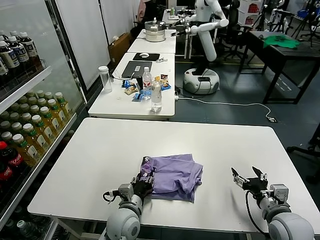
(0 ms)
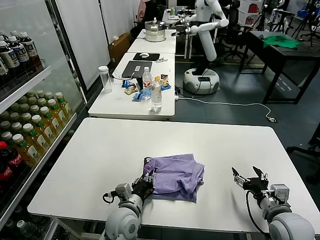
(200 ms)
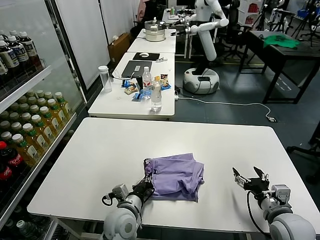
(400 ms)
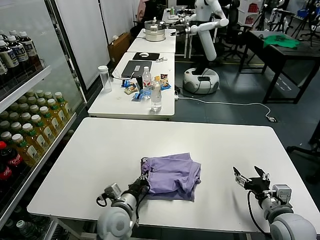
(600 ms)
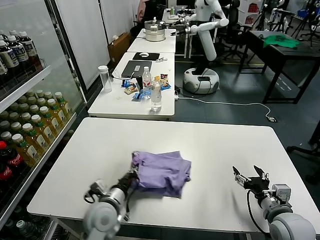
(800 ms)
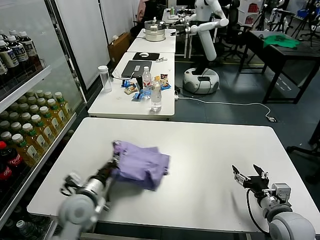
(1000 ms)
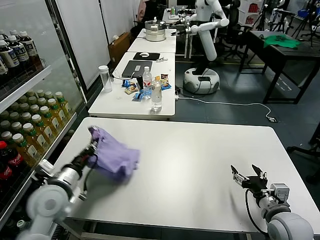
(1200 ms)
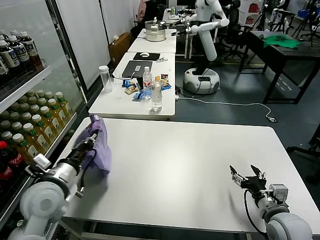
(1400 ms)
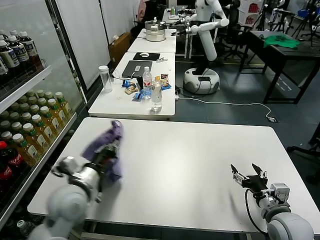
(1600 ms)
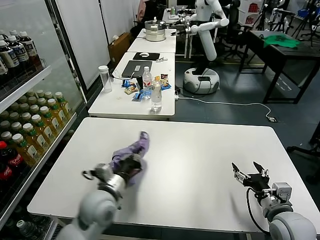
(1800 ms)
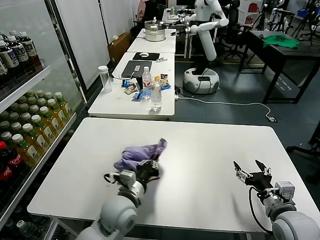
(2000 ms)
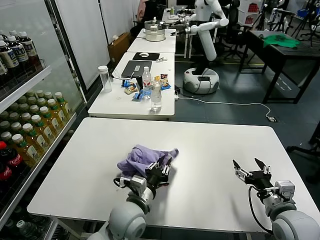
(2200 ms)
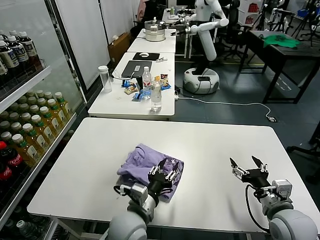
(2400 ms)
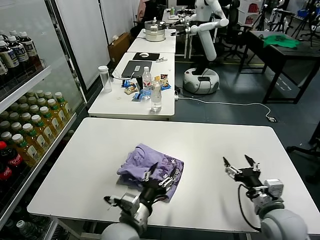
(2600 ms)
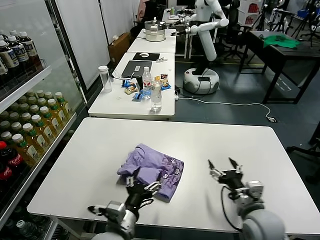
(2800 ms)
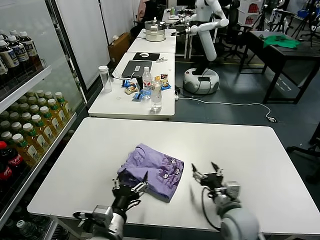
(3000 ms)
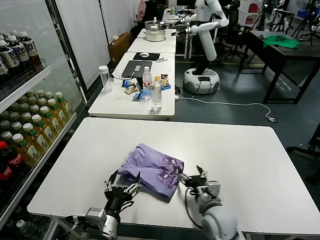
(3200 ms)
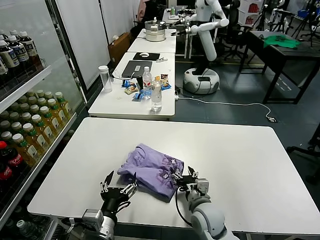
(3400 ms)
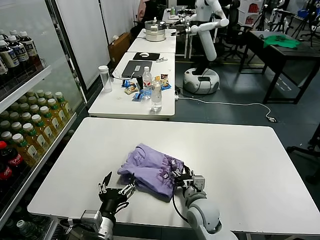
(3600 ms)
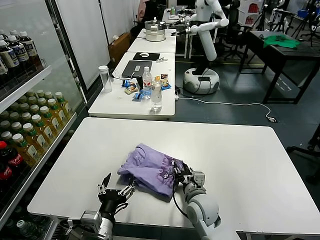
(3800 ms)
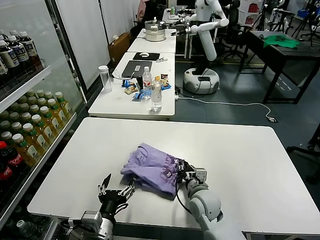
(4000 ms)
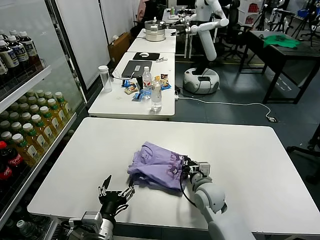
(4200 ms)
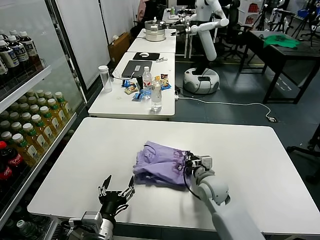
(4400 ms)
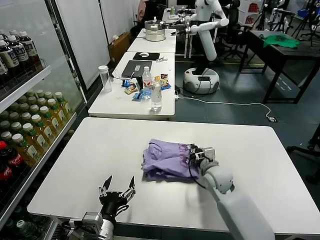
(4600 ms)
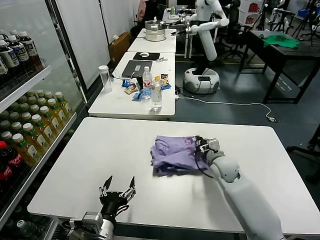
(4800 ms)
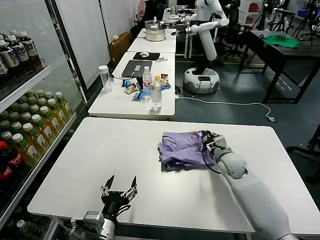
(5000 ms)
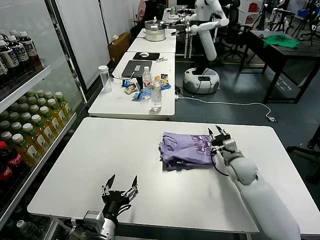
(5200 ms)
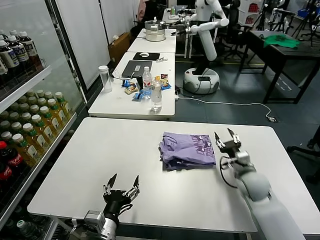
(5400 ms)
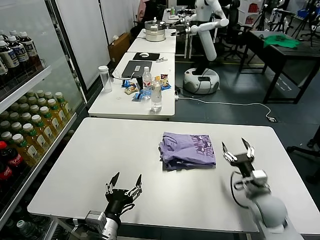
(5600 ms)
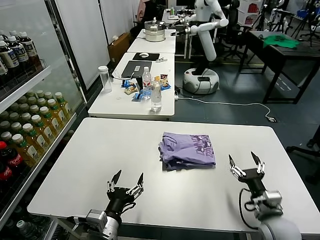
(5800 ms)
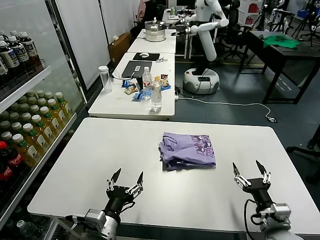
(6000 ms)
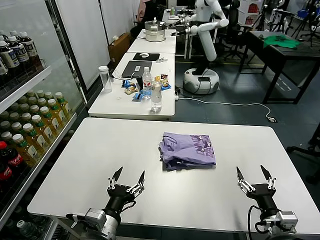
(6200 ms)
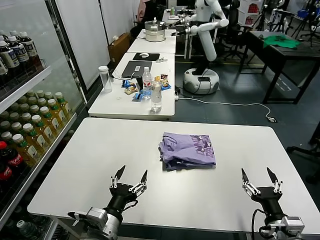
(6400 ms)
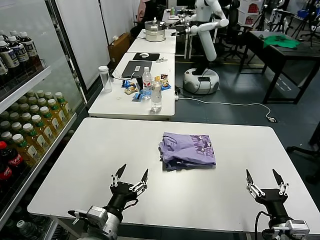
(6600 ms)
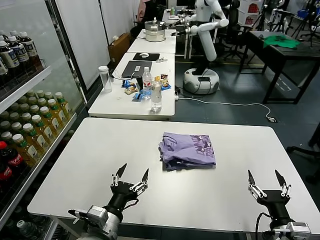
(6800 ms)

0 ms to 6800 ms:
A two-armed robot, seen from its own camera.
Task of the whole recording: fold and organize the clothes.
Step, 0 ms to 2400 ms: Flip the folded clothes over with left gripper.
Step, 2600 ms to 5200 ms: Drag the clothes to the center of the table.
0 ms to 1400 ms: The left gripper moves to the left and upward, about 25 cm, and closes up.
1400 ms to 2800 ms: The right gripper goes roughly 5 cm to the left; the left gripper is displaced to the right and backward by some 20 cm, and opens its fingers.
2800 ms to 4000 ms: The right gripper travels to the left, forward and downward by roughly 20 cm, and closes. Meanwhile the left gripper travels to the left by some 5 cm.
4000 ms to 5400 ms: The right gripper heads to the right and forward, covering approximately 20 cm.
5400 ms to 6800 ms: The right gripper goes some 25 cm backward, and opens up.

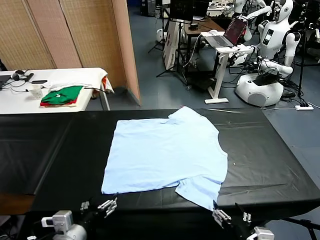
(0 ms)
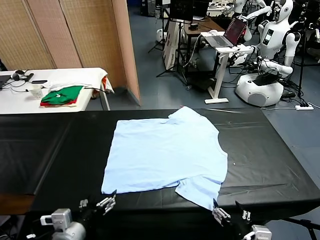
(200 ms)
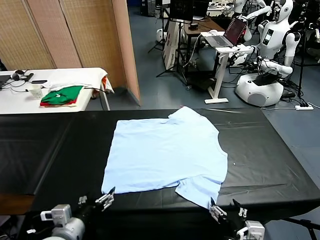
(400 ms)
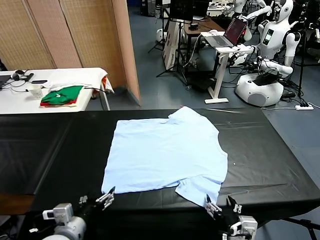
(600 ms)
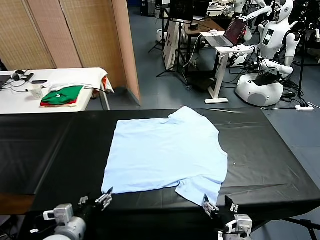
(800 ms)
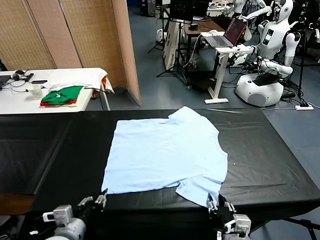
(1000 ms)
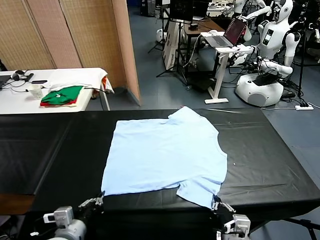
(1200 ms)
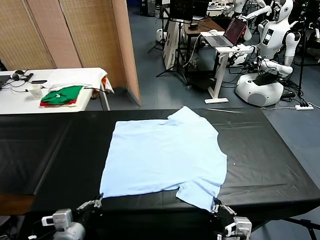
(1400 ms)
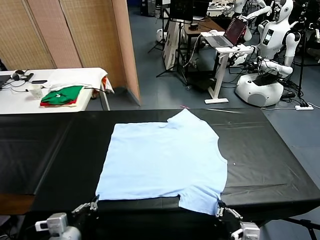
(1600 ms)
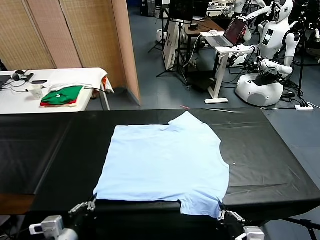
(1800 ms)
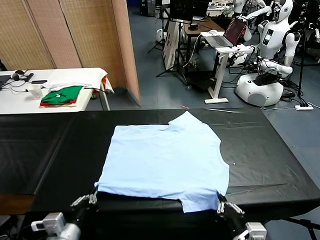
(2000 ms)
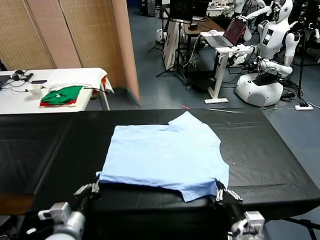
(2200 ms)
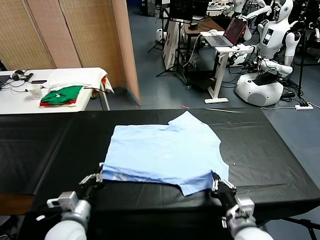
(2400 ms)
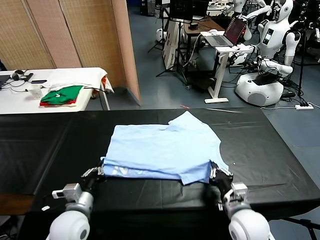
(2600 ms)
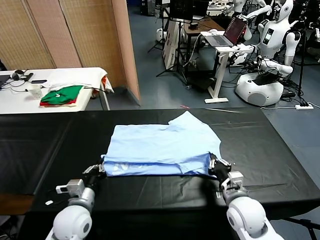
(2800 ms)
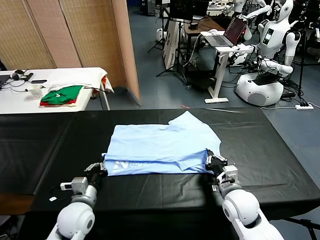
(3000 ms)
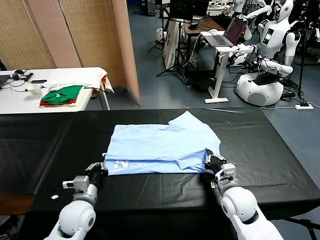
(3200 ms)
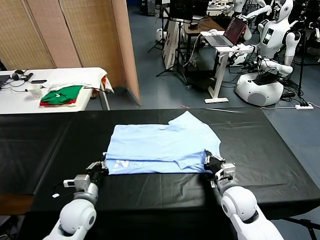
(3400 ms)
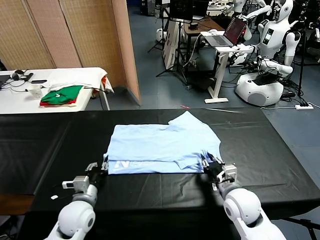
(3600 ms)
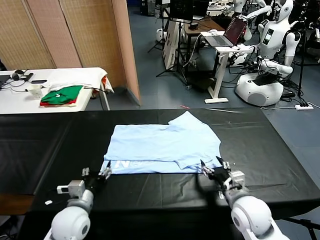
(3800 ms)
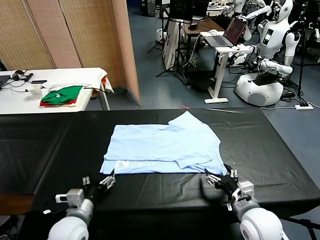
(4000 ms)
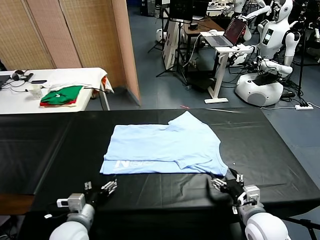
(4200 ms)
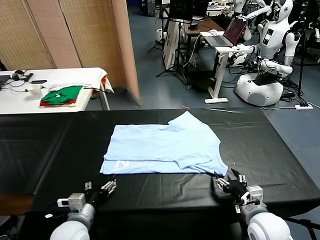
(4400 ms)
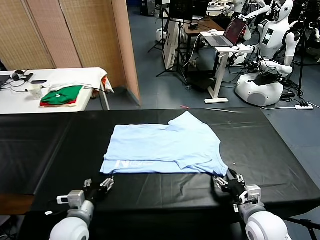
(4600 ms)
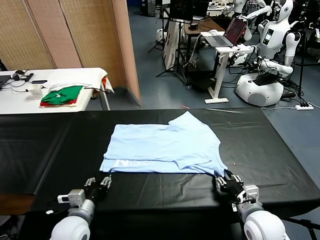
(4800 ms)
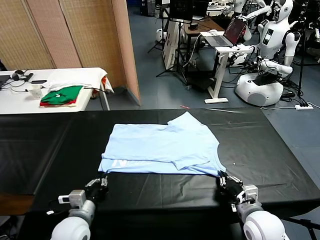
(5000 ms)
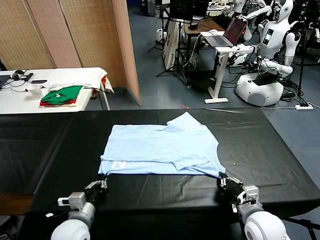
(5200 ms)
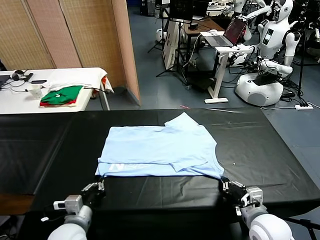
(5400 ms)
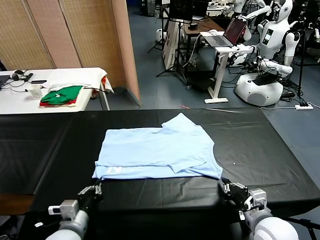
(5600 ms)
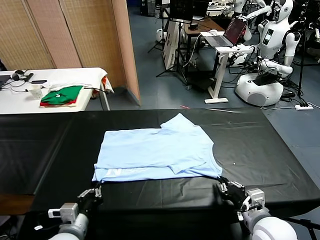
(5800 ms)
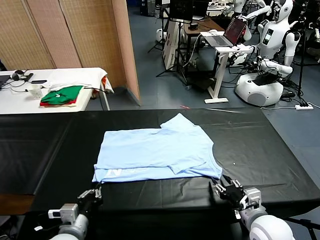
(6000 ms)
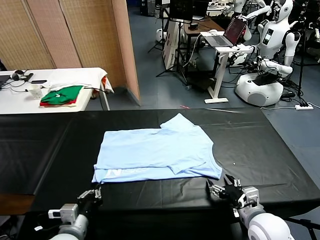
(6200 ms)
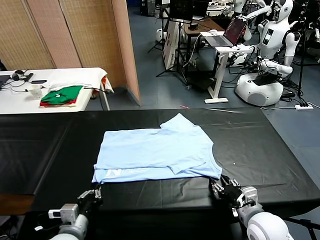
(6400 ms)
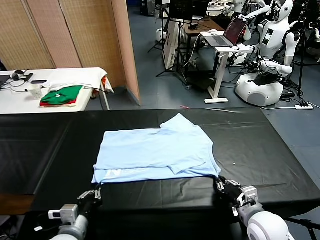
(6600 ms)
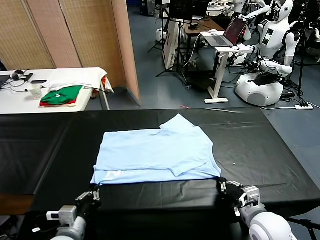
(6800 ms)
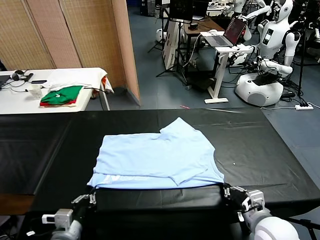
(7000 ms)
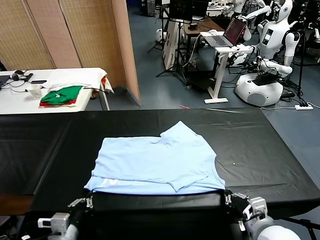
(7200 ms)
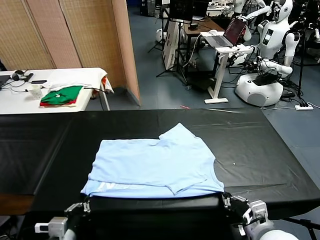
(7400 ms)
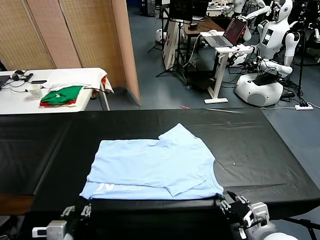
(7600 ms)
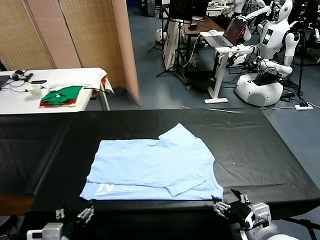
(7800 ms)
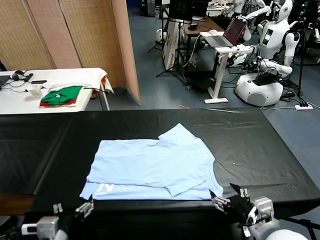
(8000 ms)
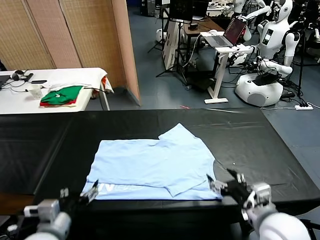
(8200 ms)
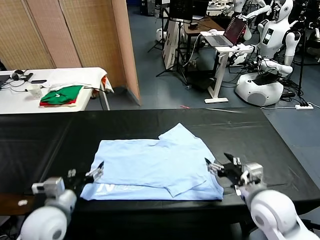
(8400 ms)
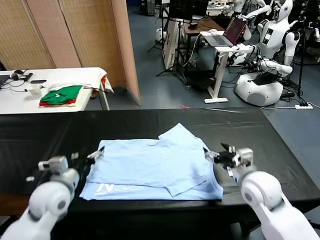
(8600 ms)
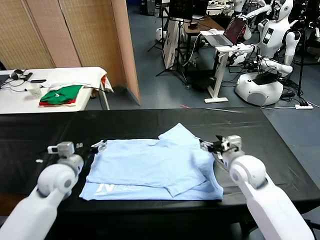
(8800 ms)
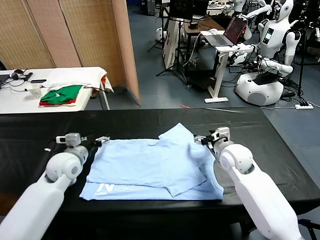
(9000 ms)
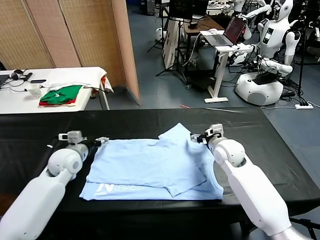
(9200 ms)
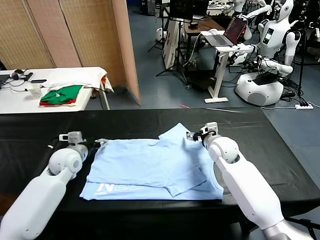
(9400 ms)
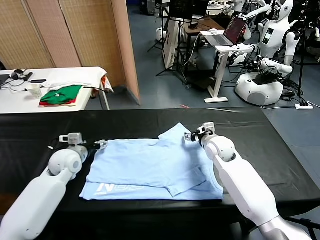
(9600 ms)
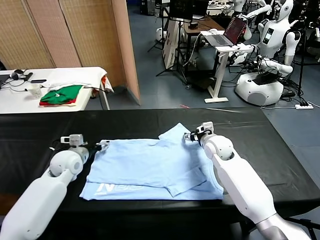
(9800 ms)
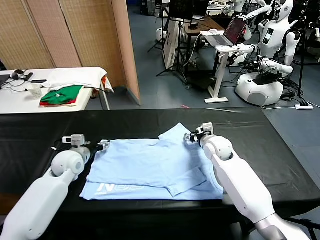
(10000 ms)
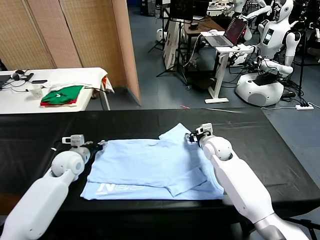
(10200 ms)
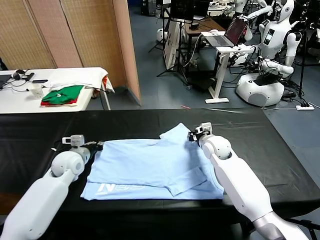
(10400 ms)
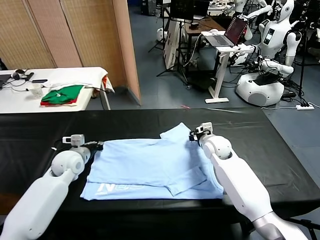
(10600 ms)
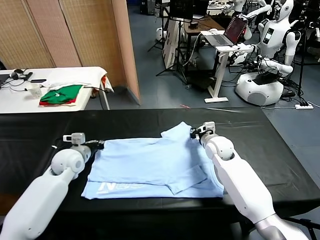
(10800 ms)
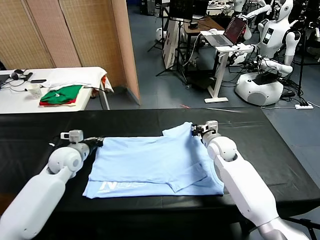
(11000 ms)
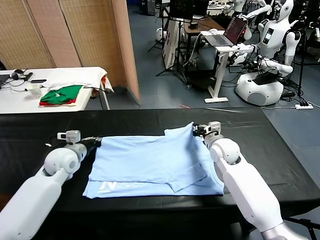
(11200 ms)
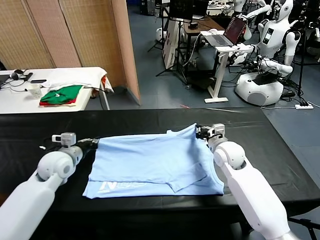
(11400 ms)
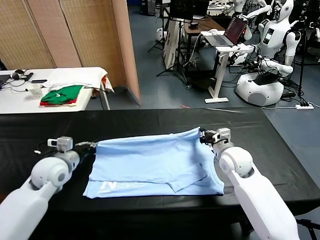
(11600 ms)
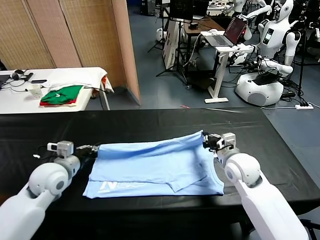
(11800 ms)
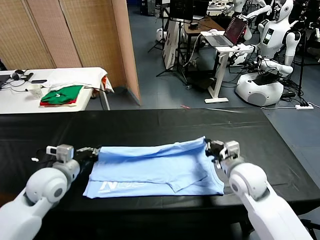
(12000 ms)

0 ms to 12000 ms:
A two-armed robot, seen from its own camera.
Task of the whole recording: fold and organize the clothes.
Step, 0 ms to 1400 ms: use both grippers simultaneously to clamp the lower edge of the clothing fabric.
Step, 1600 ms to 3600 ms: use both grippers to drag the lower edge of the fabric forward and fold it over the upper edge.
Step, 3800 ms to 7600 ms: Drag the clothes downward with both gripper.
Step, 8000 ms to 10400 ms: use both grippers simultaneously to clamp the upper edge of the clothing fabric.
1600 ms to 3000 ms: The left gripper goes about 15 cm forward and downward. The right gripper heads forward, covering about 20 cm.
3000 ms to 4400 ms: The right gripper shifts some 10 cm backward, and opens up. Meanwhile the left gripper shifts roughly 5 cm backward, and opens.
4400 ms to 6000 ms: The left gripper closes up; the right gripper closes, then reopens.
6000 ms to 7600 ms: The left gripper heads backward, covering approximately 5 cm, and opens, while the right gripper is displaced upward and backward by some 10 cm, and closes, then reopens.
7600 ms to 9000 ms: Both grippers travel together forward, about 30 cm. The left gripper opens its fingers.
9000 ms to 10400 ms: The right gripper ends up approximately 5 cm from where it was, and closes. Meanwhile the left gripper closes up.
10400 ms to 12000 ms: The left gripper travels backward and upward by some 15 cm. The right gripper is displaced backward by some 20 cm.

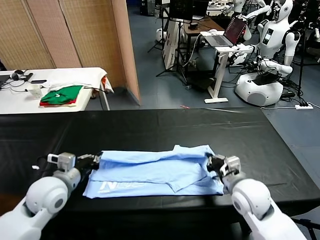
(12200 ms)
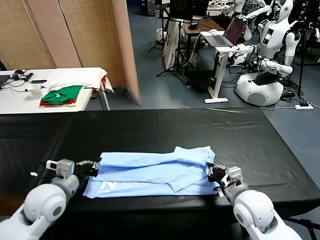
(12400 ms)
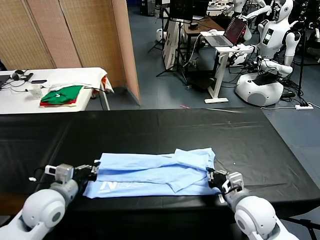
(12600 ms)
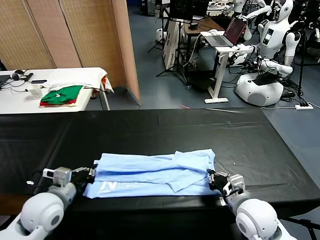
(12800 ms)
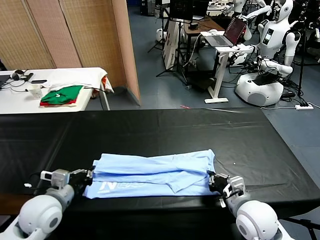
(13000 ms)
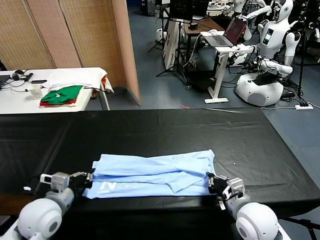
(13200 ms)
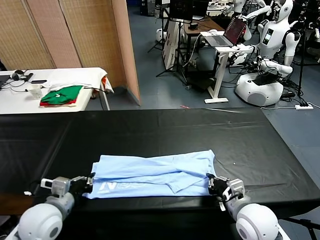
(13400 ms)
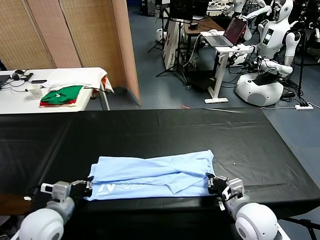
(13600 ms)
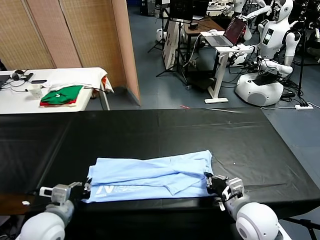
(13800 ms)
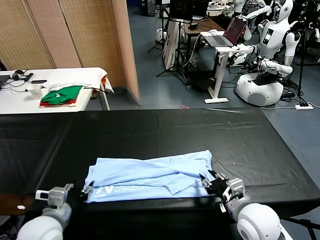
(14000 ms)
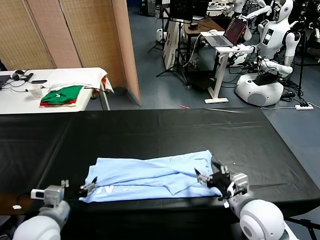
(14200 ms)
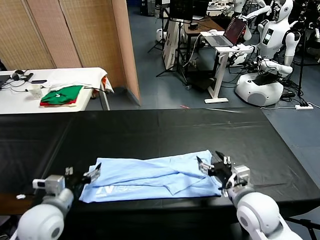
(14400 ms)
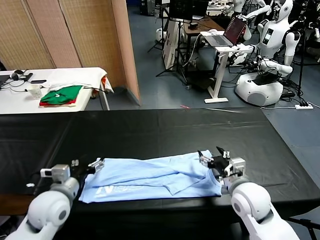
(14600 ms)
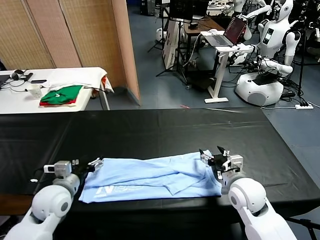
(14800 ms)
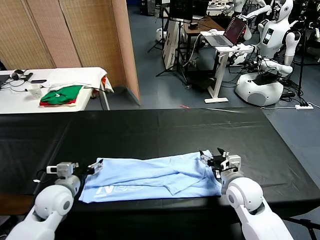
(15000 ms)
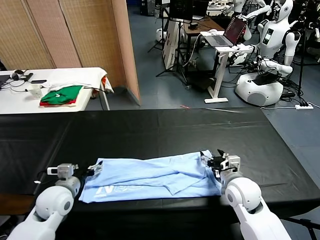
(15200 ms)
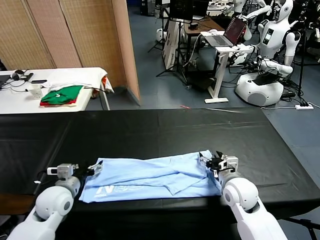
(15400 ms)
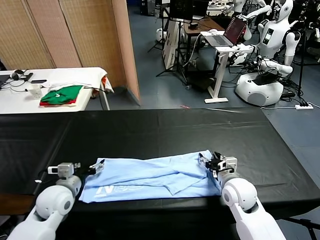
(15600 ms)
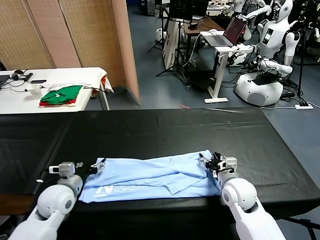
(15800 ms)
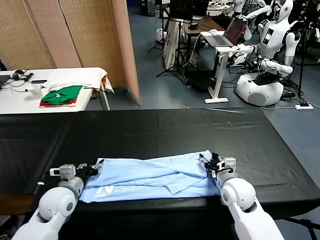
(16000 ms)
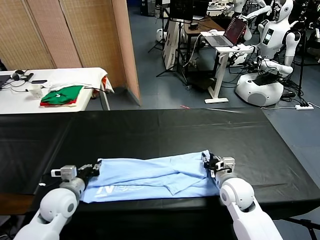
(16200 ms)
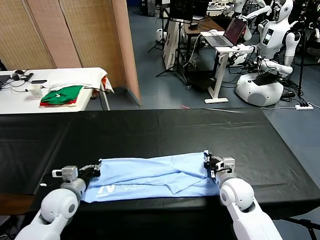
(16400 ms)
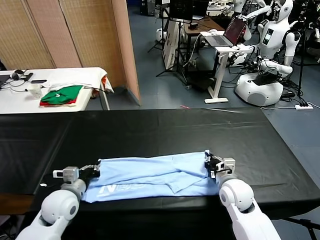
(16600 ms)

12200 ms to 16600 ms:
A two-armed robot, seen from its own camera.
Task of the whole recording: fold and organize the clothes.
Step, 12200 ms to 14000 ms: use both grippers to drag the upper edge of the fabric backward and fold it over the lower edge.
12200 ms to 13600 ms: The left gripper is displaced backward by roughly 5 cm.
13600 ms to 15200 ms: The two grippers go roughly 10 cm forward. The left gripper opens its fingers, while the right gripper opens.
15200 ms to 16600 ms: The right gripper closes its fingers. Meanwhile the left gripper closes up.
